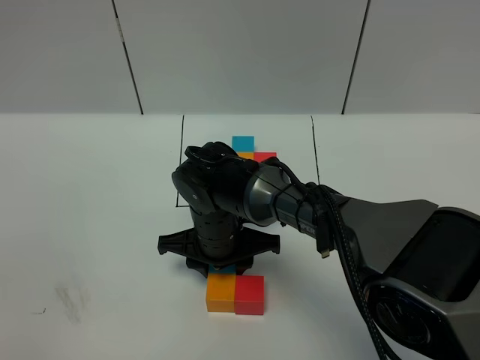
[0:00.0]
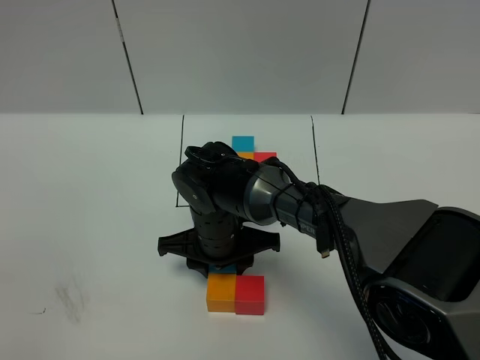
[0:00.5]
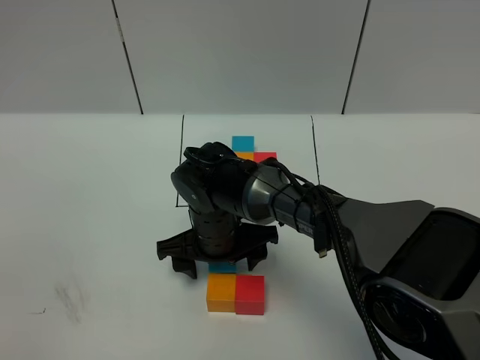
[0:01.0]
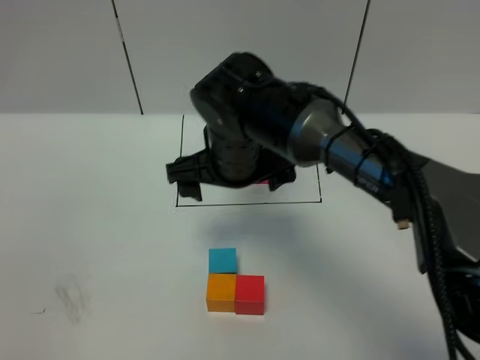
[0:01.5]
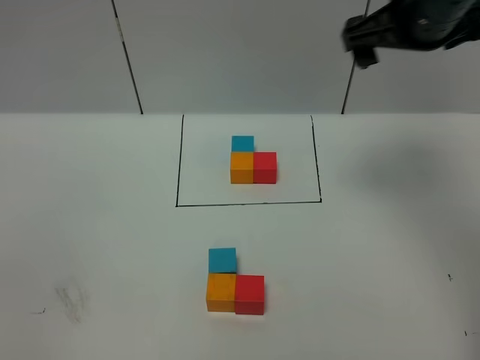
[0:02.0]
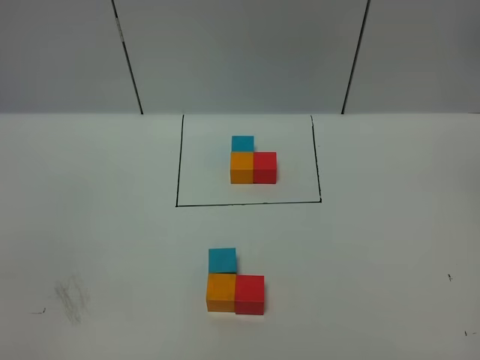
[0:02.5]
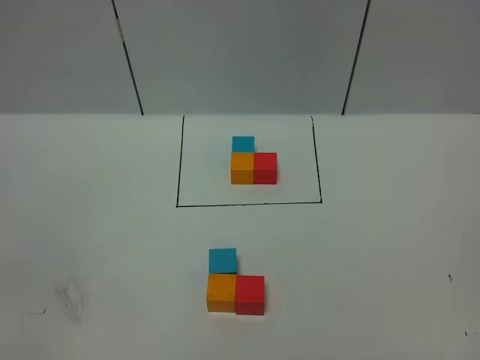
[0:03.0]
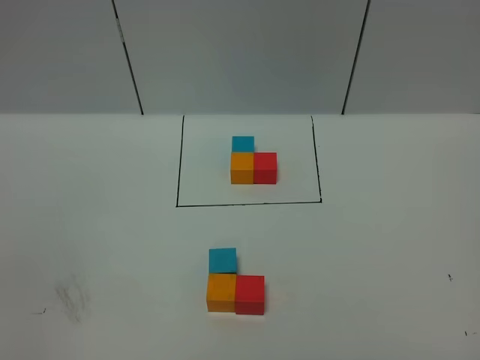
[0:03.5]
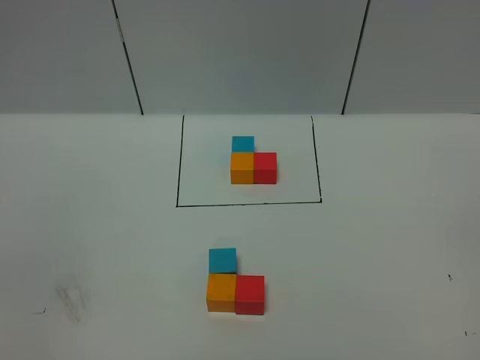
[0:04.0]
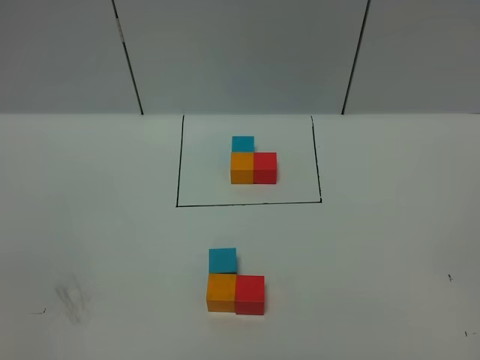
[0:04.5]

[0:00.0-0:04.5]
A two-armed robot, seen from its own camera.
Task of the whole recording: According to the building block template in front, assemble the scattered blocks together.
0:00.0 to 0:02.0: The right gripper travels upward and to the right by about 35 cm, and opens.
0:02.0 to 0:04.5: The right gripper goes some 40 cm backward.

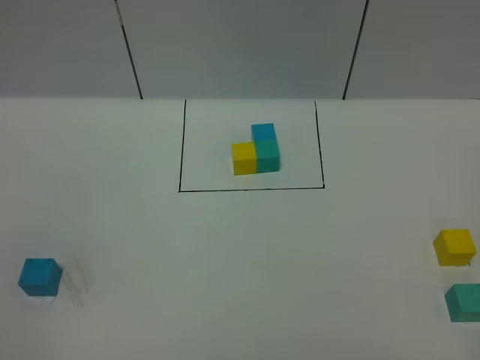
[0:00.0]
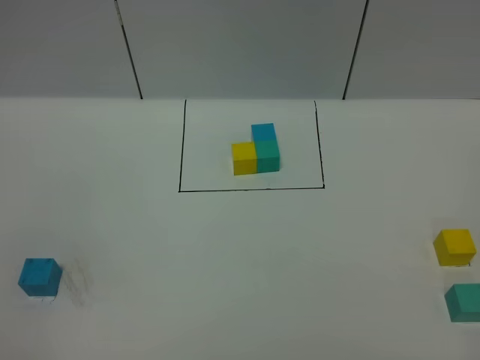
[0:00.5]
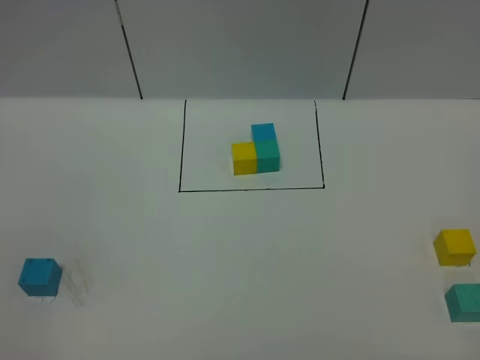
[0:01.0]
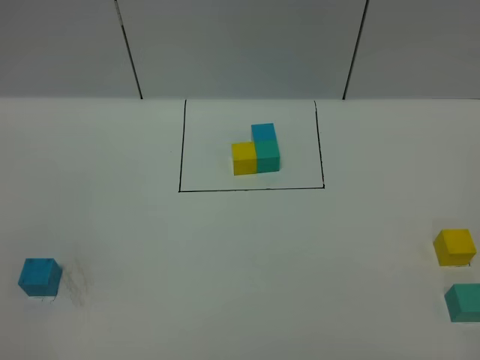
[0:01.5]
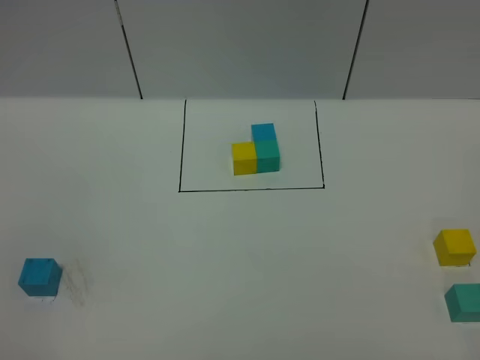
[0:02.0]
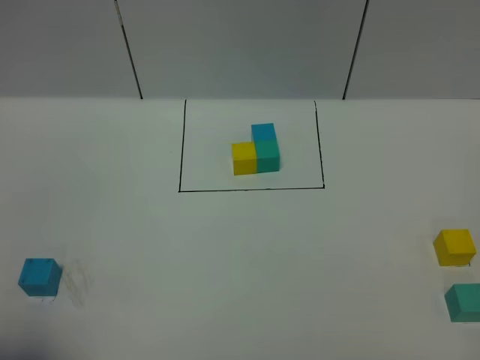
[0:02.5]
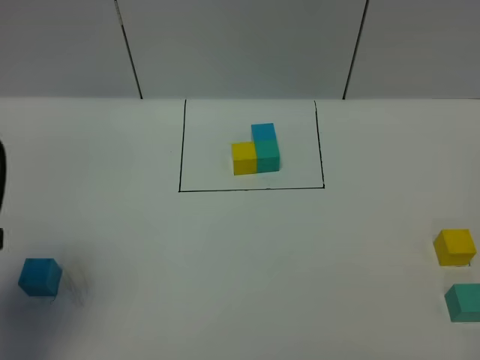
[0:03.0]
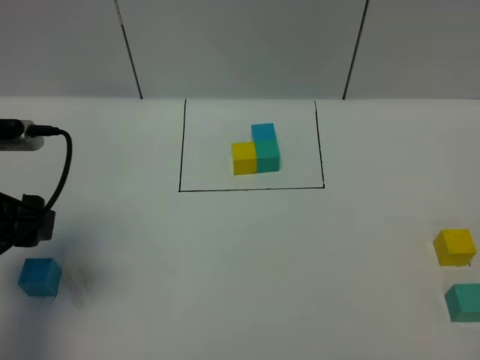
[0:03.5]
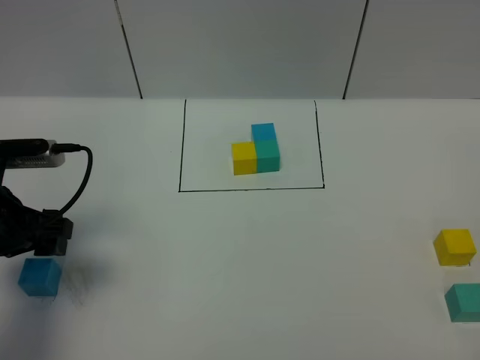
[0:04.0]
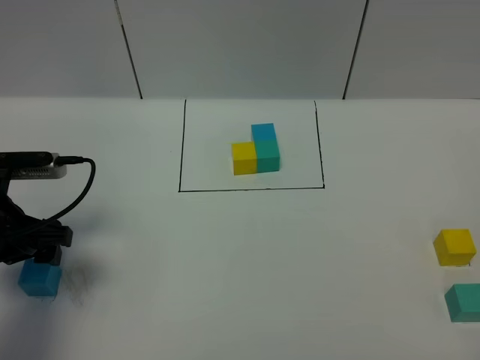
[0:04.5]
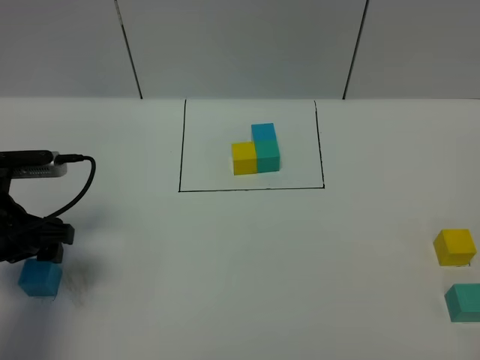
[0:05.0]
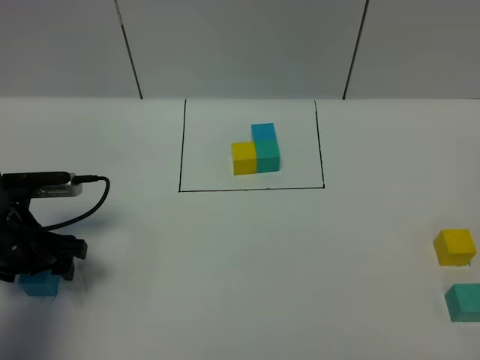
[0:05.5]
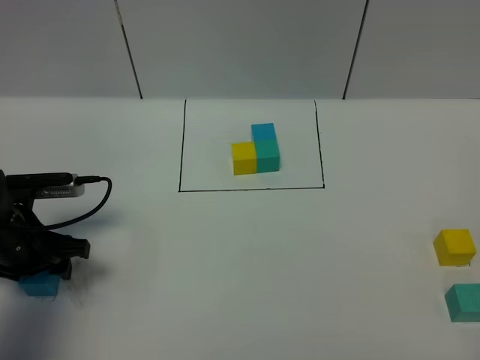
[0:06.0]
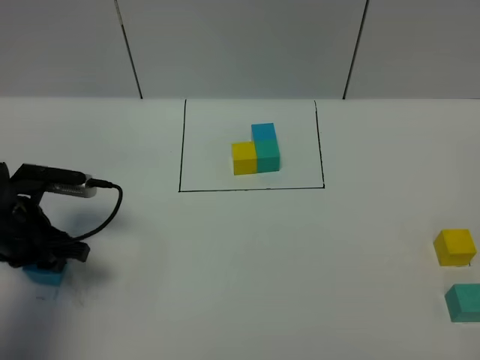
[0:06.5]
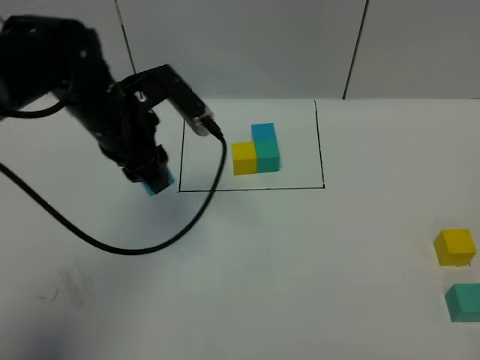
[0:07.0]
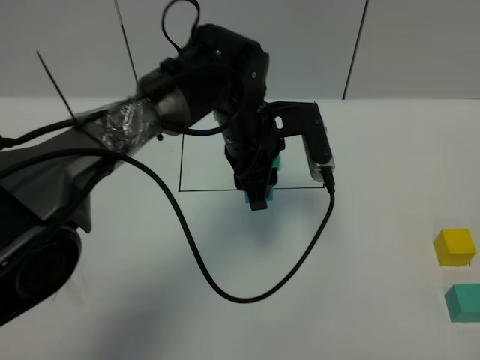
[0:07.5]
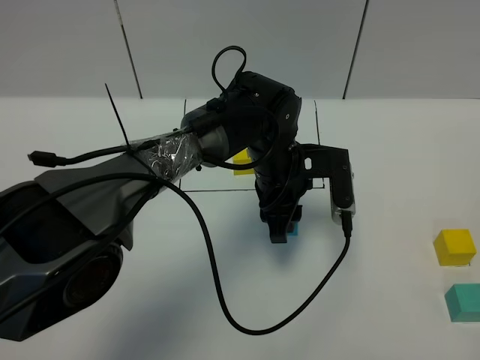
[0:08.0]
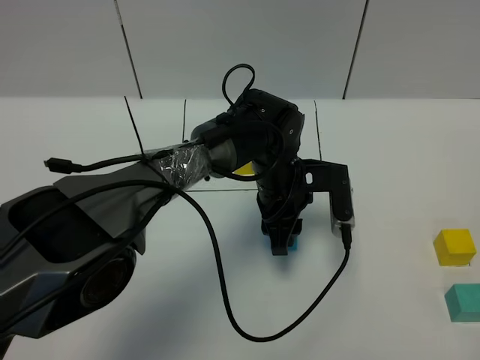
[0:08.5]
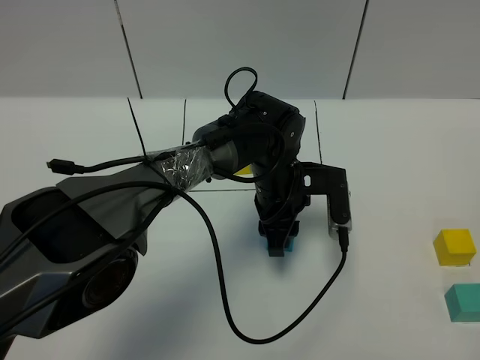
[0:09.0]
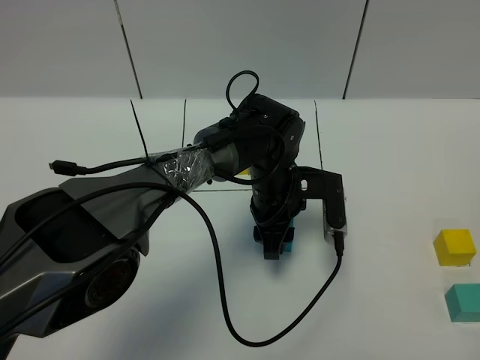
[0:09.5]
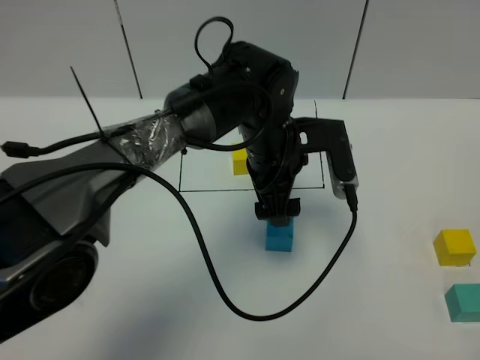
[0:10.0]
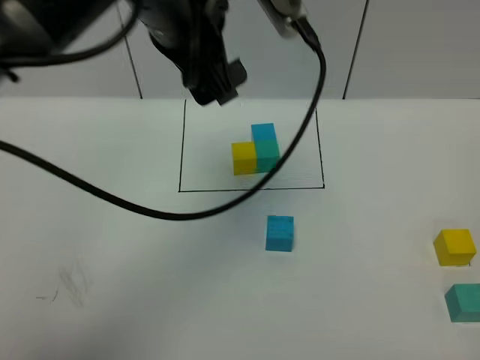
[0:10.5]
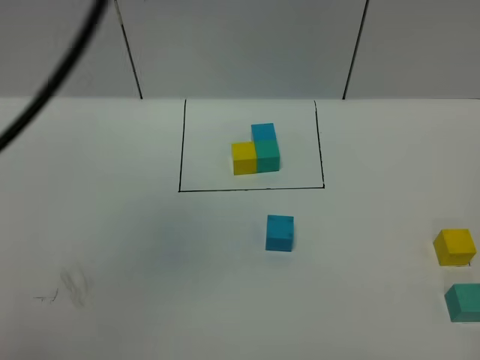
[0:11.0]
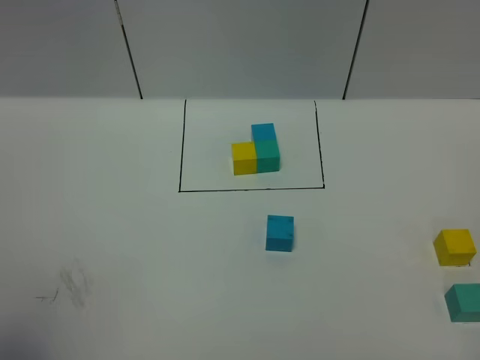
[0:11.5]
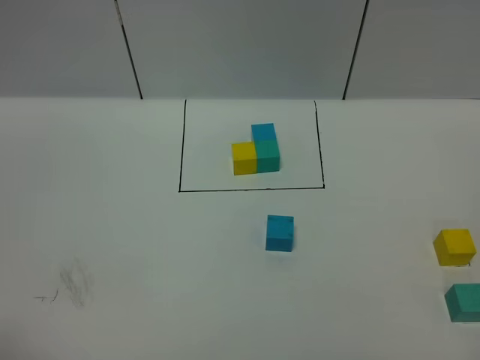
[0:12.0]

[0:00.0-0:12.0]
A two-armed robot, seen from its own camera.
Task of the whole recording: According to the building block template in front, assemble the scattered blocks together.
Step, 0:03.0 to 0:10.0: Put the blue cube in the center of the table.
0:00.0 to 0:02.0: Neither gripper changes place.
0:02.0 to 0:04.0: The left gripper travels forward by about 25 cm.
0:04.0 to 0:06.0: The left gripper is displaced downward by some 5 cm, and closes up.
0:06.0 to 0:08.0: The left gripper moves to the right, roughly 30 cm.
0:08.0 to 0:10.0: The left gripper goes about 5 cm upward, and opens up.
0:10.0 to 0:12.0: The left gripper is displaced backward, to the left and upward by approximately 60 cm.

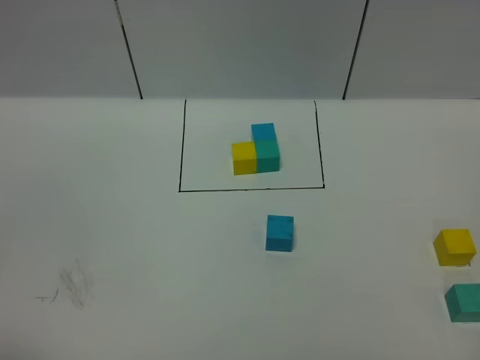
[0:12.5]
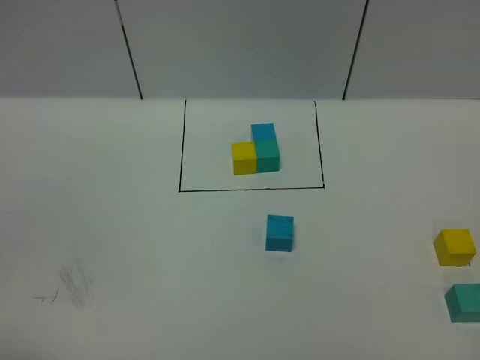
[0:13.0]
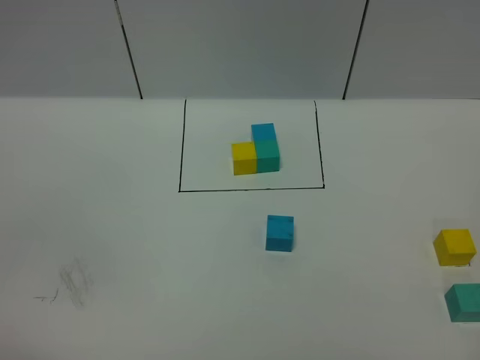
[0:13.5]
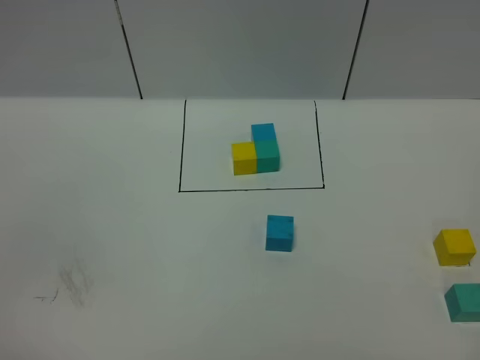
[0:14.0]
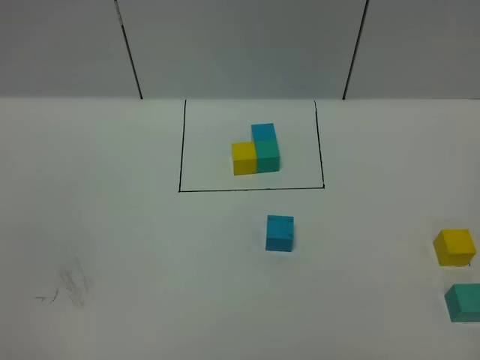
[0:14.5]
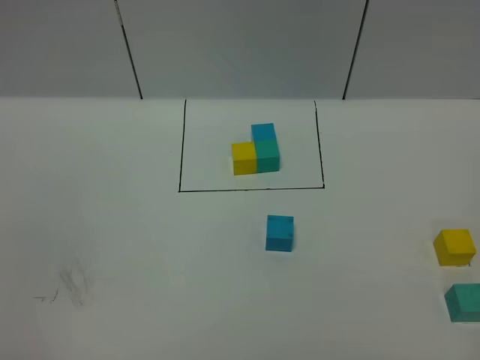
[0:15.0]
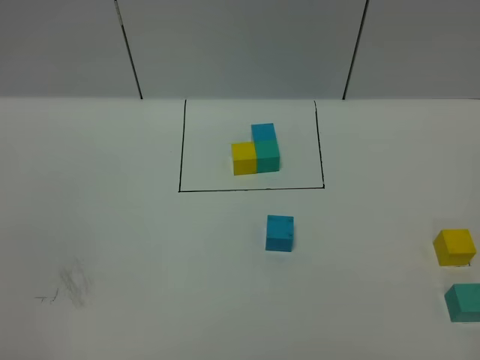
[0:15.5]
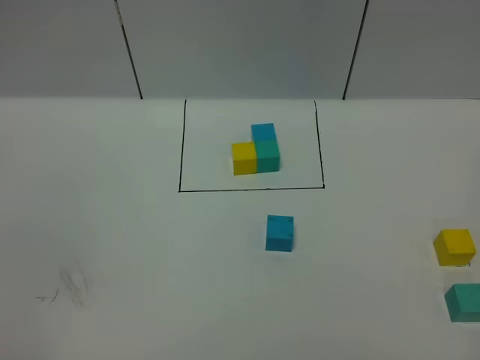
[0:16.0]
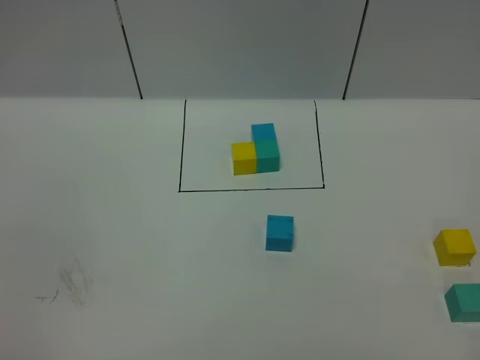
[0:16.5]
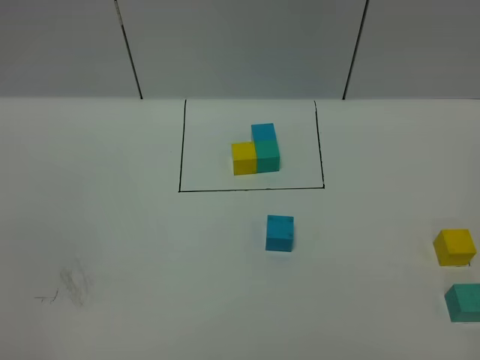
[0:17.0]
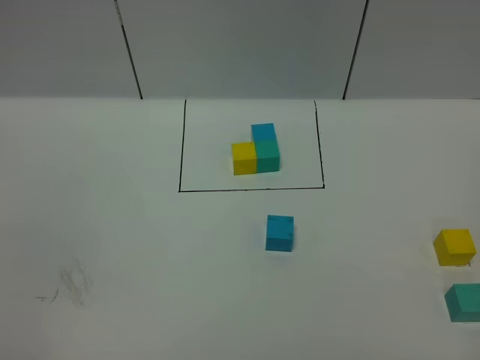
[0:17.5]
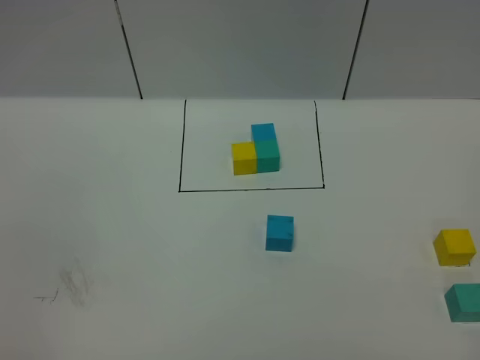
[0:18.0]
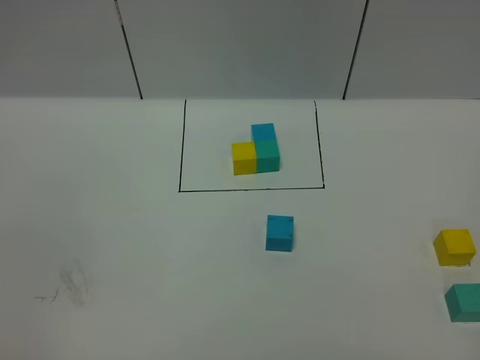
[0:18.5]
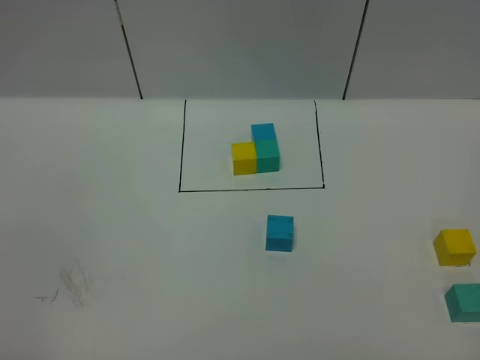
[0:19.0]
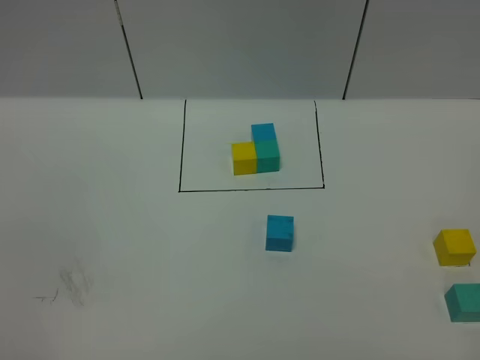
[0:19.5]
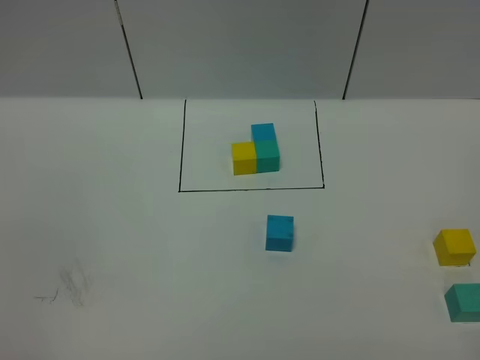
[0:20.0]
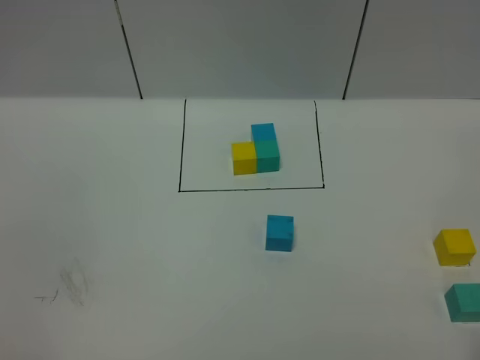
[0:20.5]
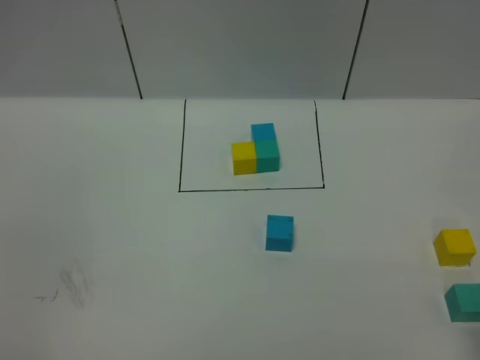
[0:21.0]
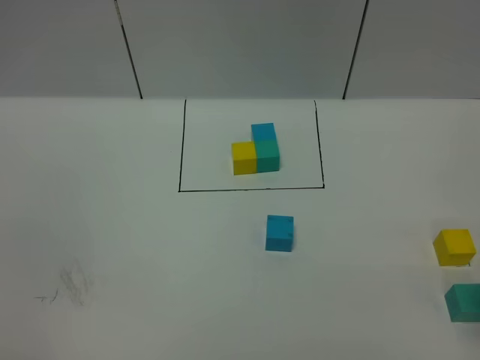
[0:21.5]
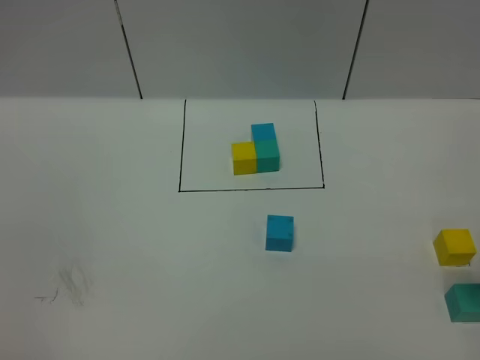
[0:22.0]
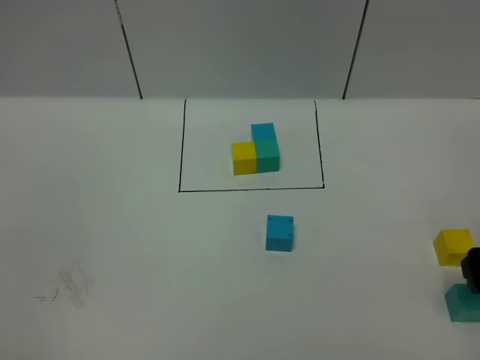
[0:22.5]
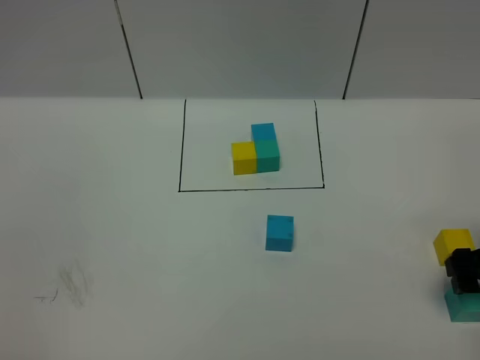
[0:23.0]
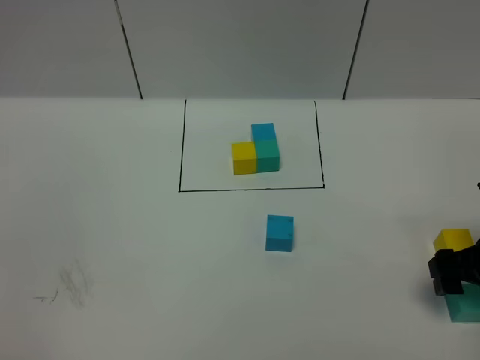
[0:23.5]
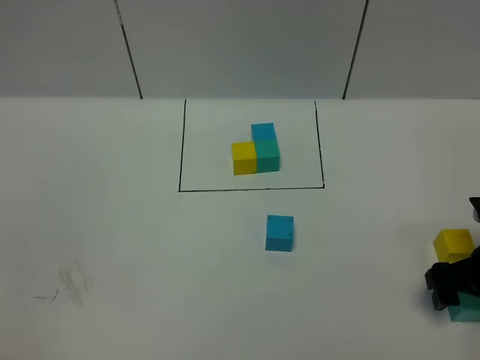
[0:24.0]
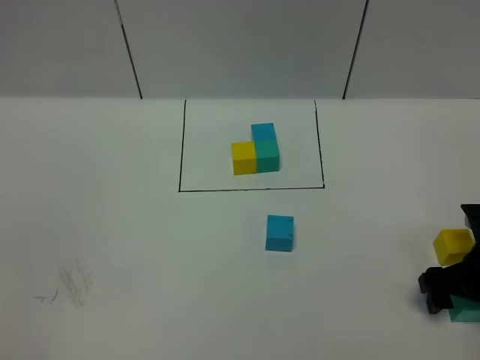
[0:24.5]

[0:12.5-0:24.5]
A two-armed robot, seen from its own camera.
Task of the whole recording: According to the building block template in front, assemble the scattered blocks together.
0:16.5 to 0:18.5: Neither gripper changes place.
0:20.5 to 0:22.5: The right gripper goes some 20 cm forward and downward.
0:22.5 to 0:24.5: The right gripper is displaced downward by approximately 5 cm.
